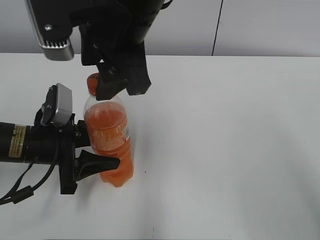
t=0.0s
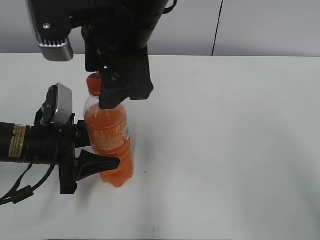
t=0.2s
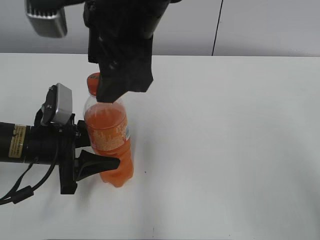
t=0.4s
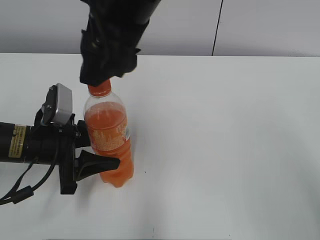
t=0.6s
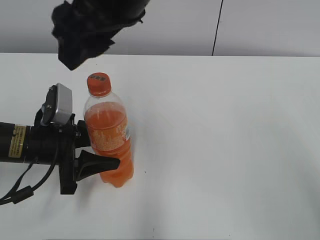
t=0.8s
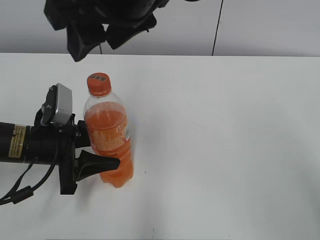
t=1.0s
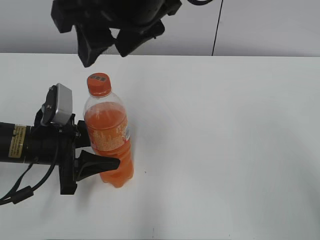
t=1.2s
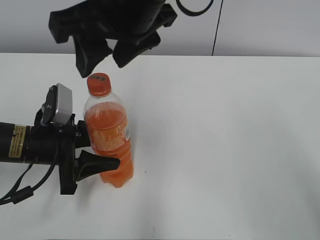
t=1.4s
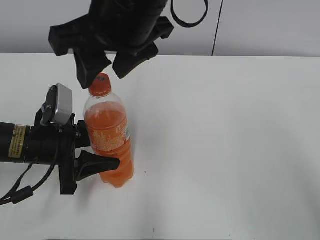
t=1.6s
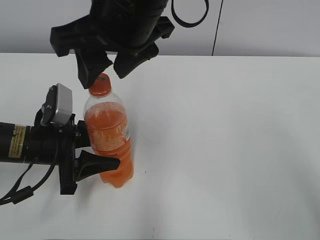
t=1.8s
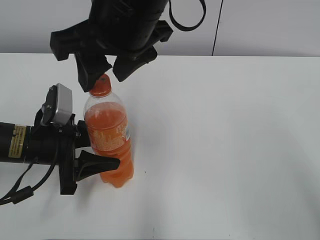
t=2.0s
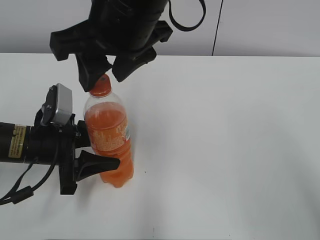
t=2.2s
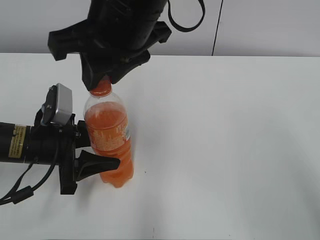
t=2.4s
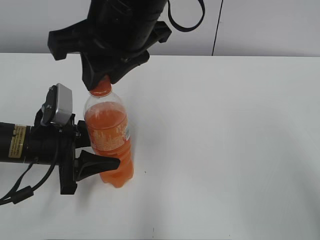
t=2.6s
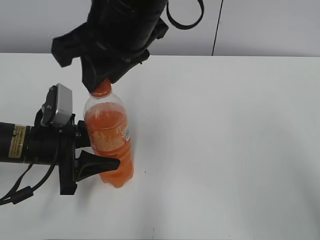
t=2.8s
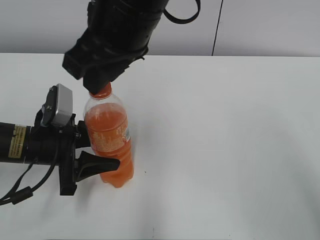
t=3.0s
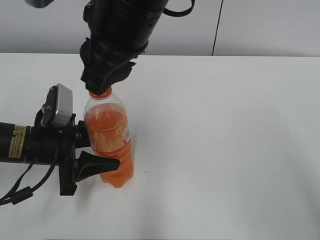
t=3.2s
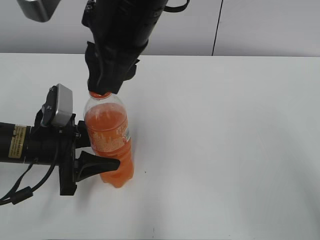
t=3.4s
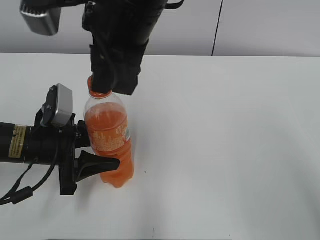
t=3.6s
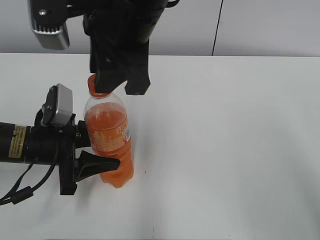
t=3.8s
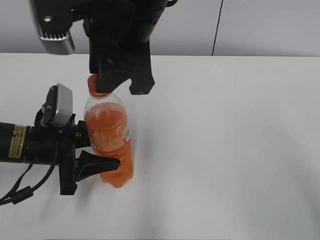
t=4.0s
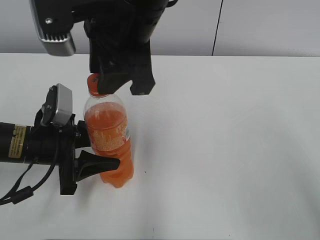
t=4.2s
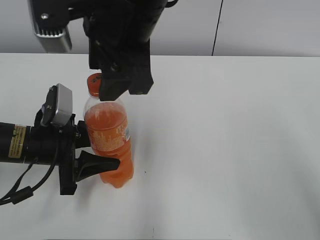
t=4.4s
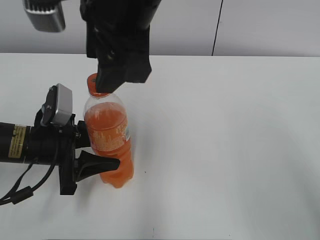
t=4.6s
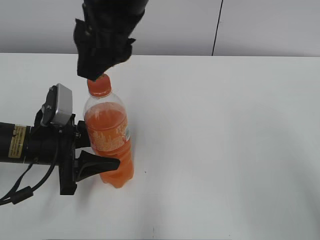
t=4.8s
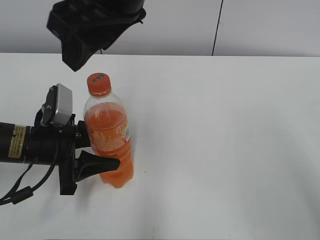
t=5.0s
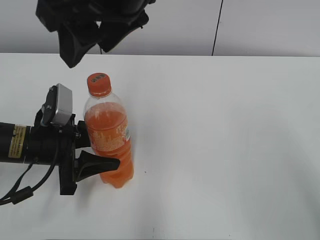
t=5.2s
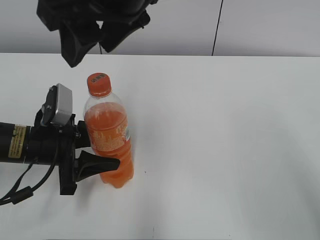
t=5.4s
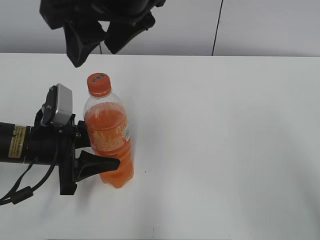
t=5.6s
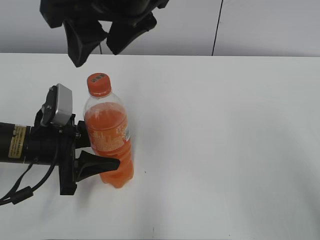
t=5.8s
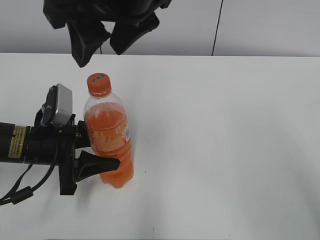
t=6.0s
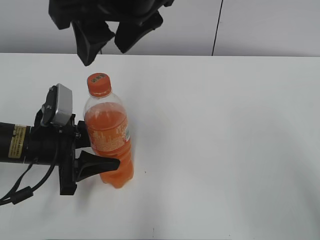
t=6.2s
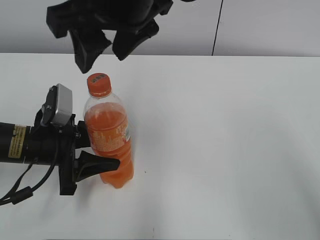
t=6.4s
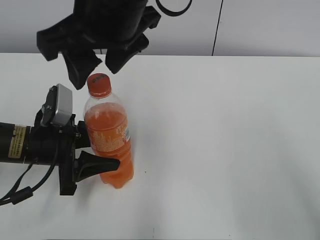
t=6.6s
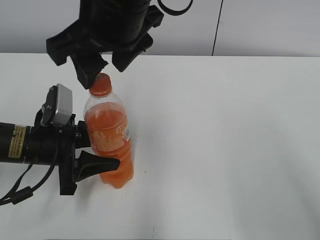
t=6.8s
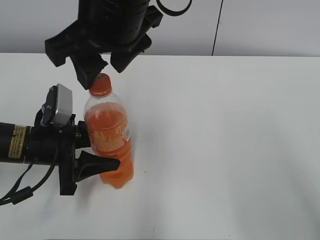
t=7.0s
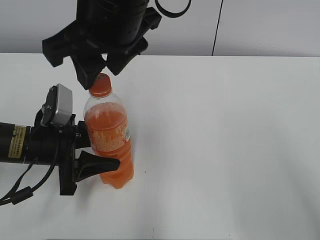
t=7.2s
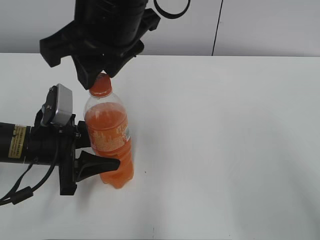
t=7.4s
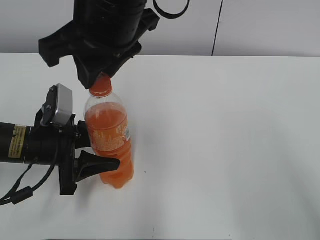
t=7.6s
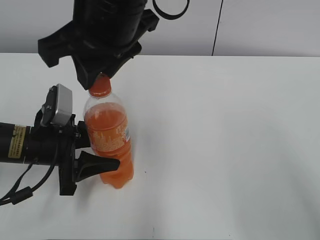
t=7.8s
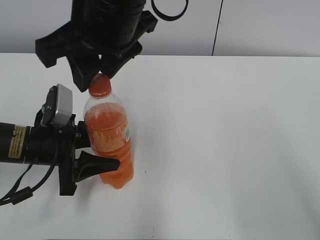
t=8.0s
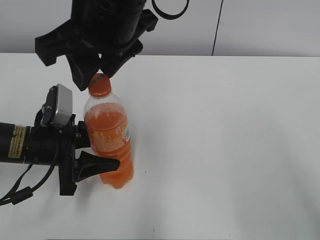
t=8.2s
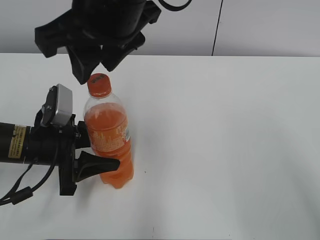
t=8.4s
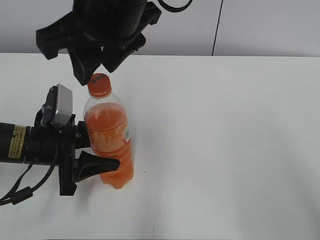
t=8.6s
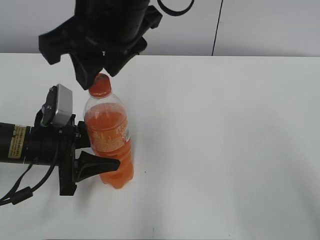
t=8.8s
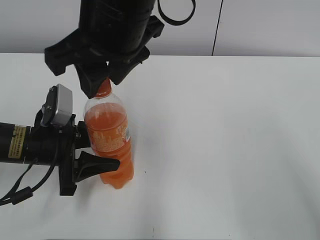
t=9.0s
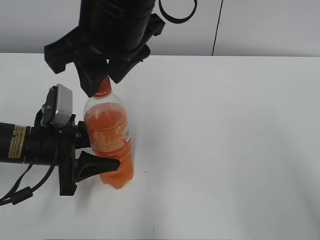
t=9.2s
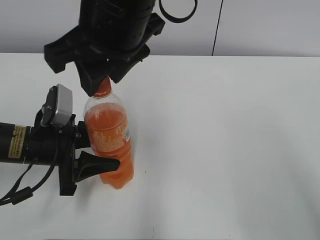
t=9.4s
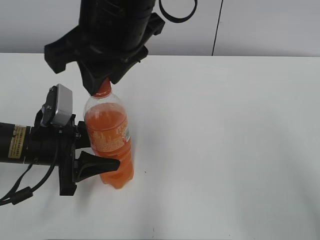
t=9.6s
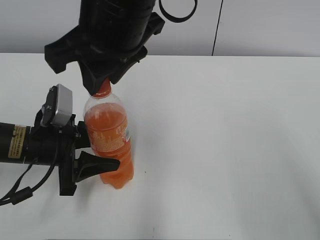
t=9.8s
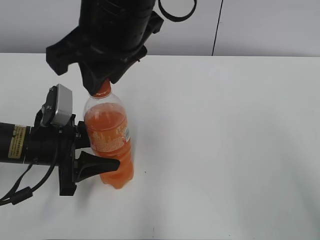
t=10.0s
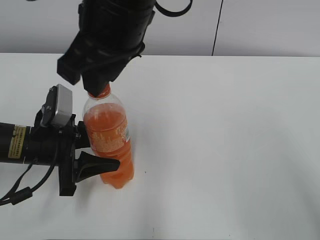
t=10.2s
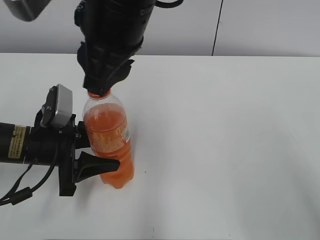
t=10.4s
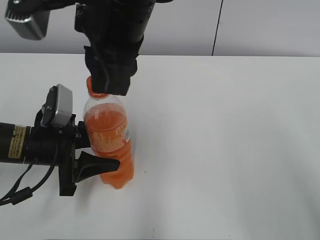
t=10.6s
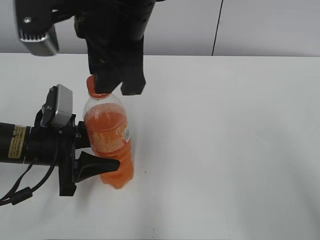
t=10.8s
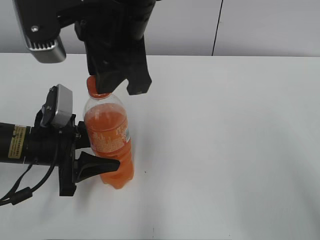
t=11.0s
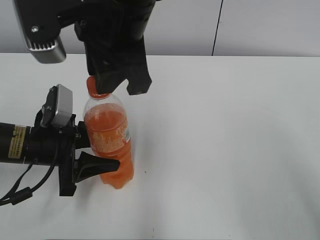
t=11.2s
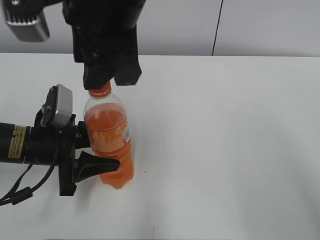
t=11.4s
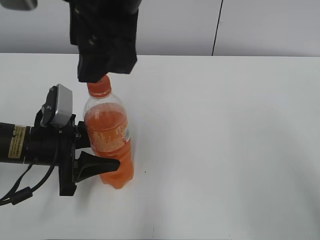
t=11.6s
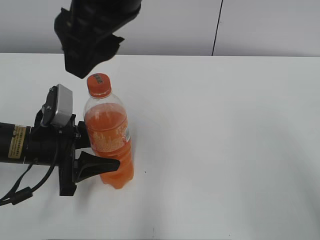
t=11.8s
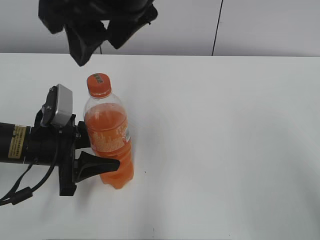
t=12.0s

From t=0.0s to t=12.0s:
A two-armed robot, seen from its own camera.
From t=1.6s to t=3.0s: The right gripper closes.
From t=3.0s to t=4.4s: The right gripper opens up.
From t=6.0s to t=7.6s: The right gripper closes its fingers.
From t=7.6s to t=9.0s: Both grippers stay put.
From t=10.4s to t=12.0s: The right gripper opens up.

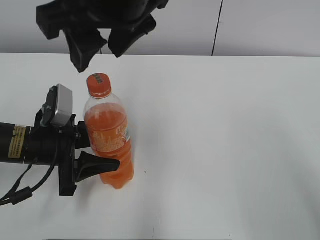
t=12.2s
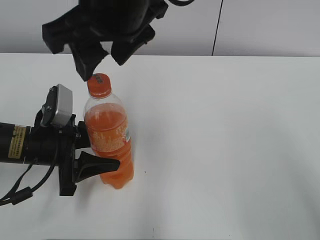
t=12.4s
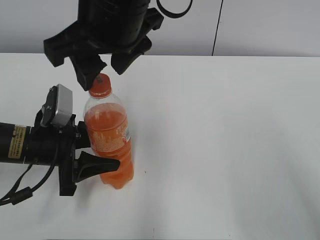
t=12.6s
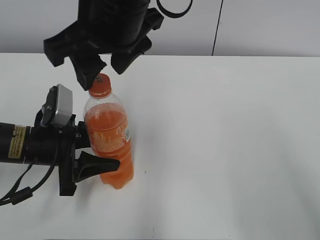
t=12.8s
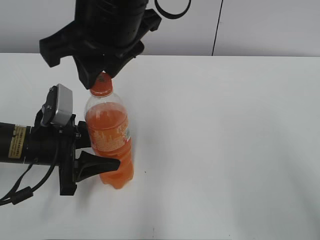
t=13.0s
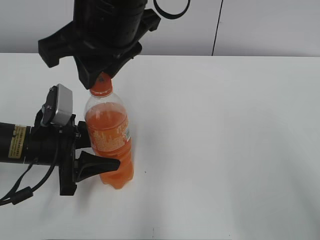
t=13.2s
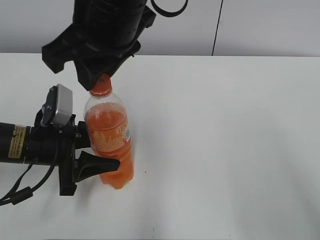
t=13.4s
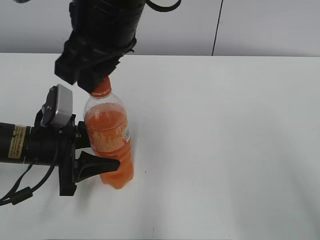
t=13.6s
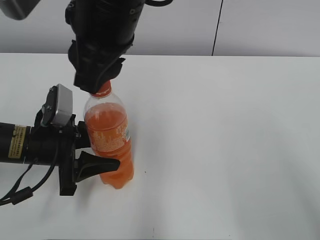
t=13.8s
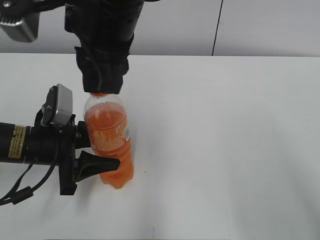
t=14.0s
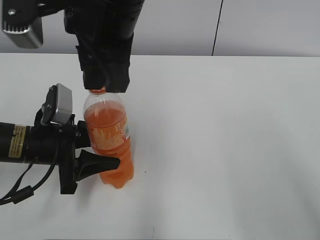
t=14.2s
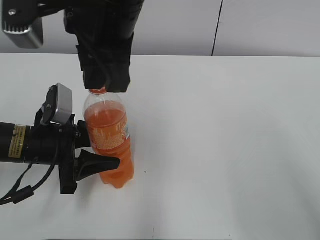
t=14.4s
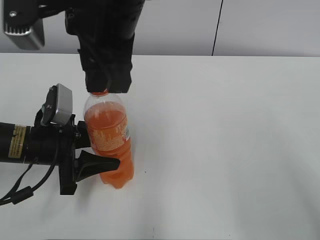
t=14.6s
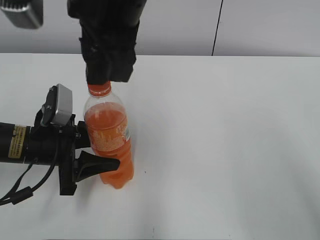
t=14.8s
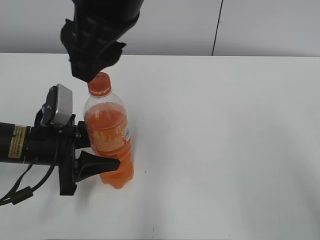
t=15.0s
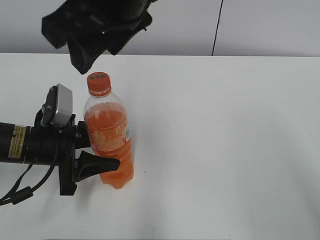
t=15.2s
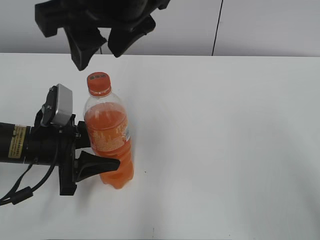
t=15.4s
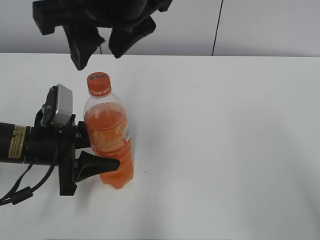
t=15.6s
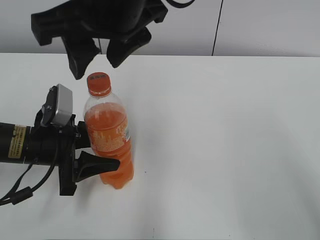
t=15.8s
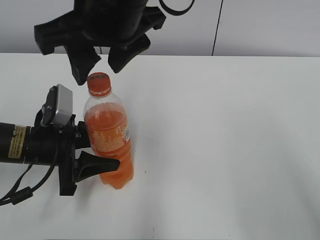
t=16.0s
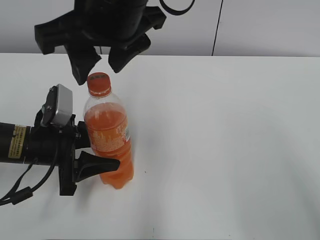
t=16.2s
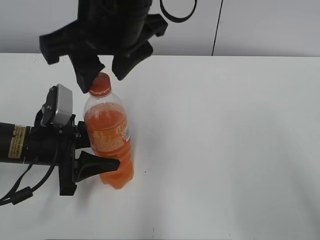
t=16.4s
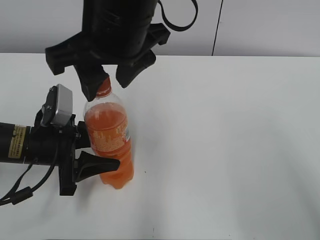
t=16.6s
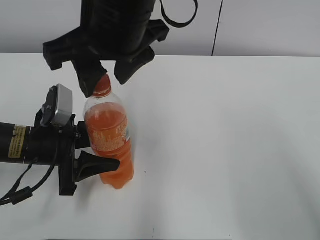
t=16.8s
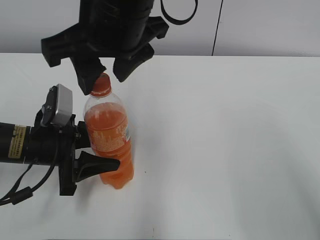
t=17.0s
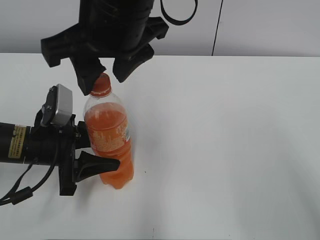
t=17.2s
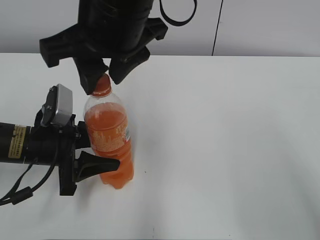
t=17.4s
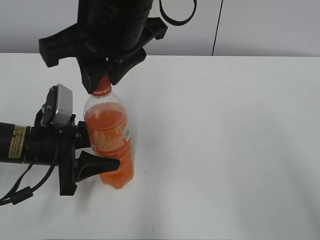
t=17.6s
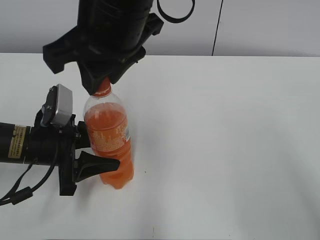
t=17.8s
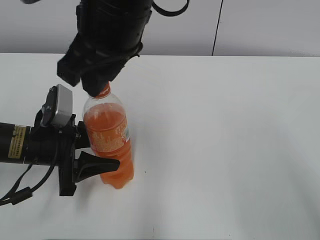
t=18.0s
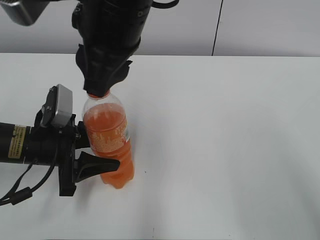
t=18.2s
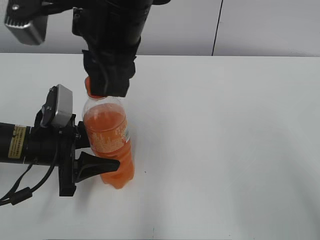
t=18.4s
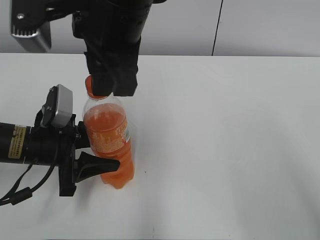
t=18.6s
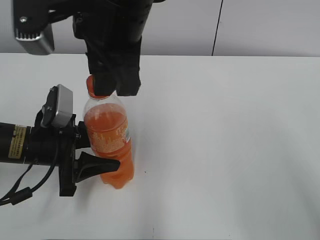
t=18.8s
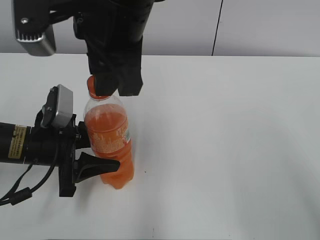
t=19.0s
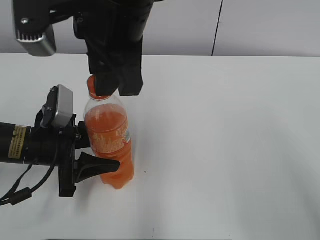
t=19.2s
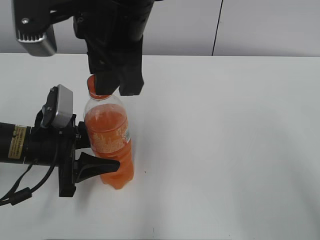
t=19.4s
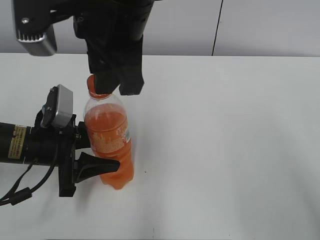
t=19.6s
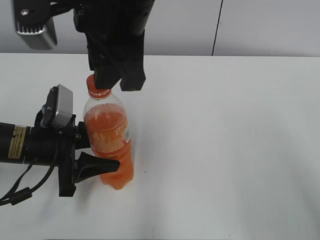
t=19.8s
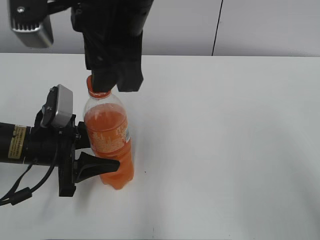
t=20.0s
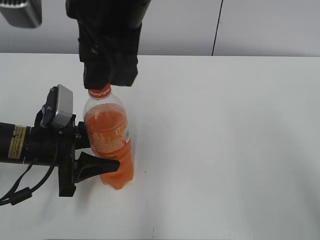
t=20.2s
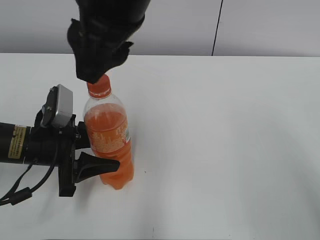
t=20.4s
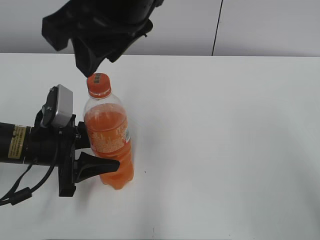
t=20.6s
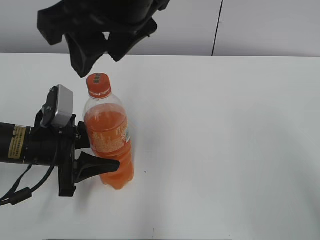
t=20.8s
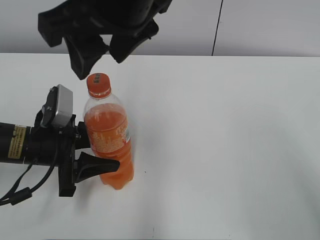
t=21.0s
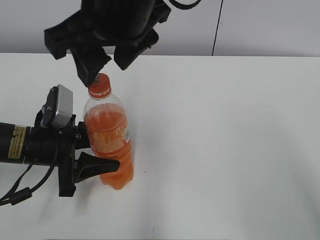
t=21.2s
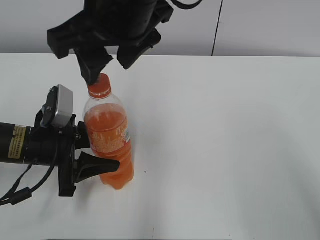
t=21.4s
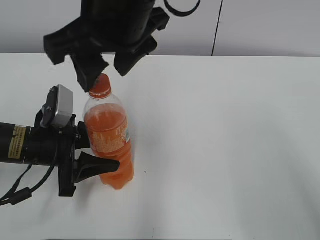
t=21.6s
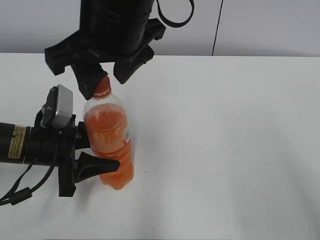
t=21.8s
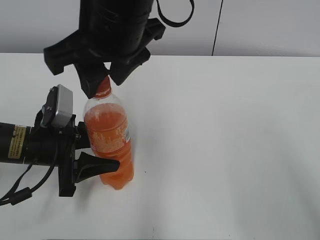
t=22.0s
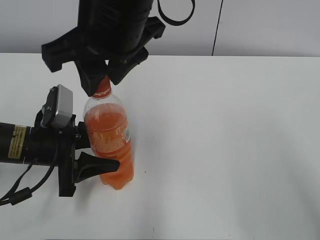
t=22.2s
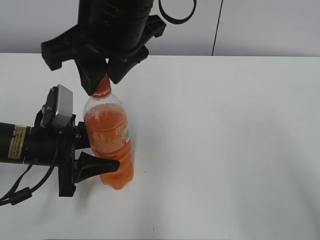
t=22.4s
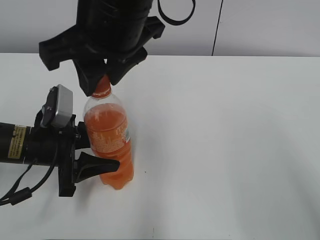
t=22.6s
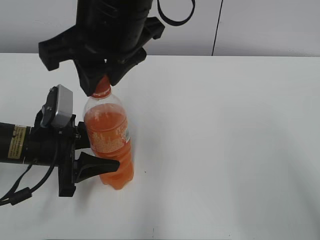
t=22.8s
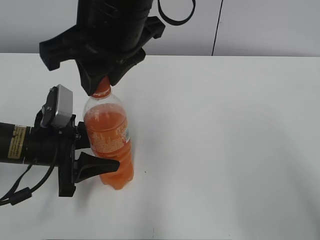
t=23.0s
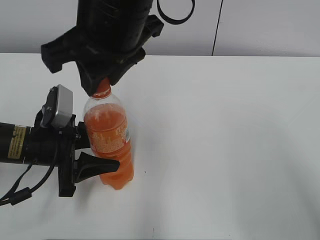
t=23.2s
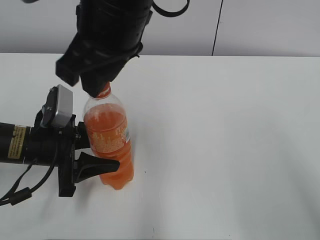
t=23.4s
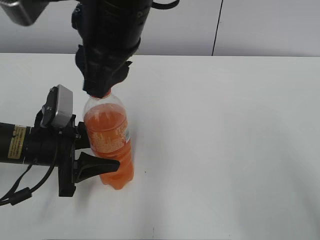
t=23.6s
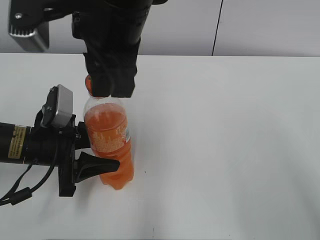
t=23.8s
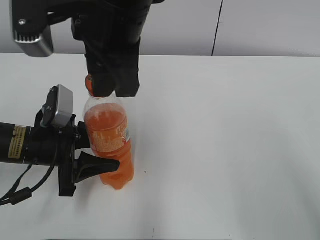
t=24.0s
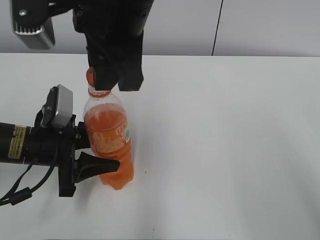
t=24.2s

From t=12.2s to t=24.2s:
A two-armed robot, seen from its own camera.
Step, from t=12.2s to t=24.0s: Twist the bottle cap with the right hand.
From t=12.2s to t=13.8s: The right gripper closes.
From t=13.8s to t=15.2s: The right gripper opens up.
From t=15.2s to t=16.6s: The grippers move only a little.
From t=16.6s to t=18.2s: The right gripper closes up.
From t=19.8s to t=21.2s: The right gripper opens.
From t=21.2s to t=22.6s: The right gripper closes up.
